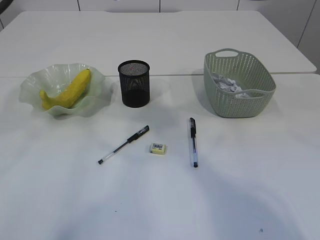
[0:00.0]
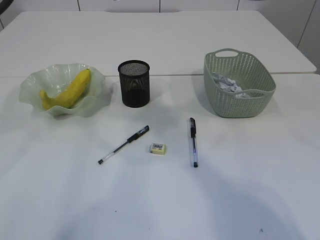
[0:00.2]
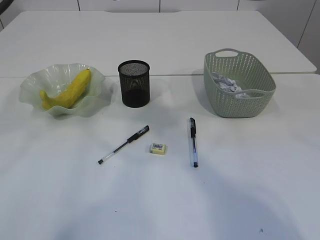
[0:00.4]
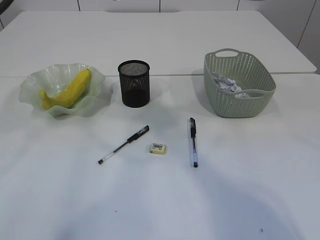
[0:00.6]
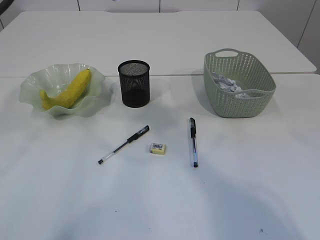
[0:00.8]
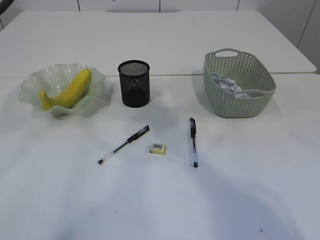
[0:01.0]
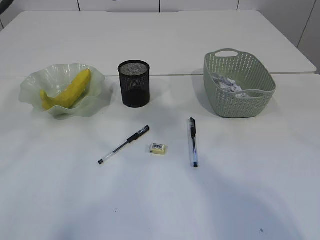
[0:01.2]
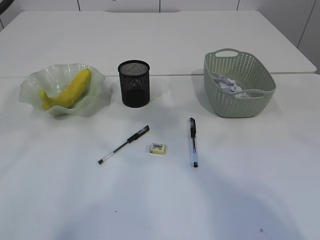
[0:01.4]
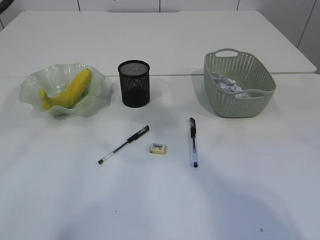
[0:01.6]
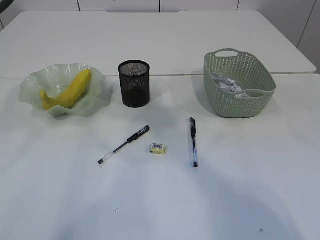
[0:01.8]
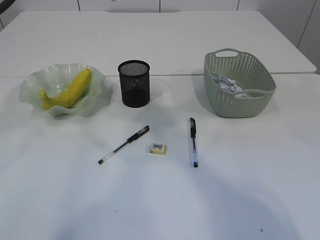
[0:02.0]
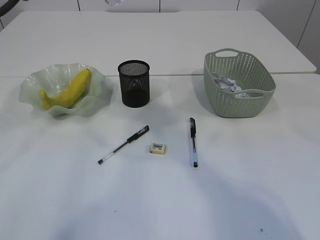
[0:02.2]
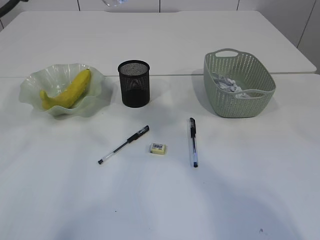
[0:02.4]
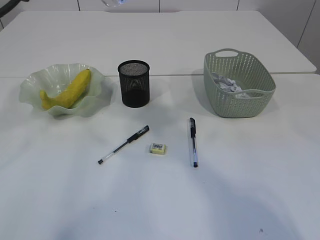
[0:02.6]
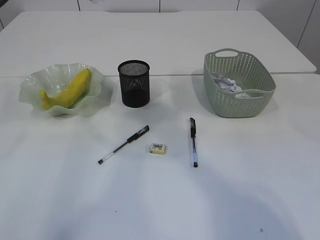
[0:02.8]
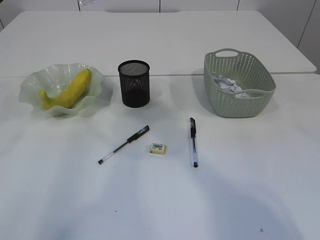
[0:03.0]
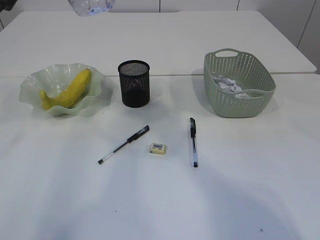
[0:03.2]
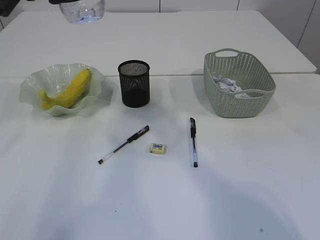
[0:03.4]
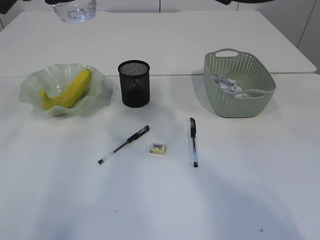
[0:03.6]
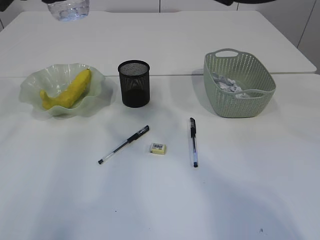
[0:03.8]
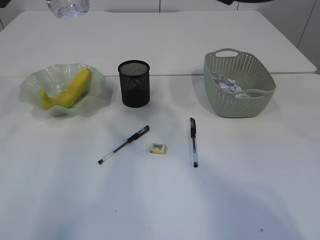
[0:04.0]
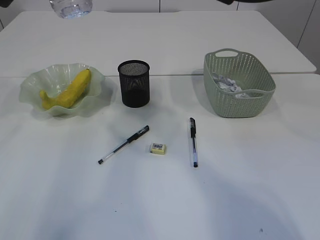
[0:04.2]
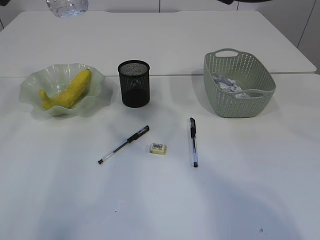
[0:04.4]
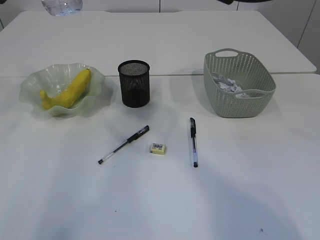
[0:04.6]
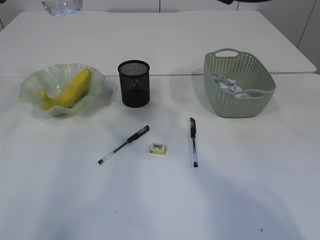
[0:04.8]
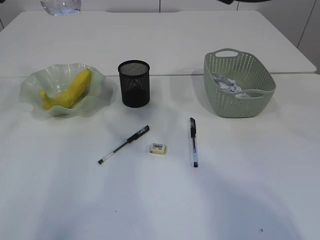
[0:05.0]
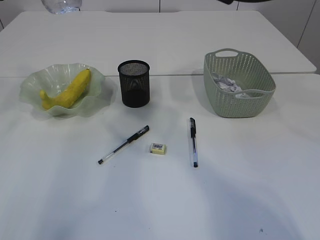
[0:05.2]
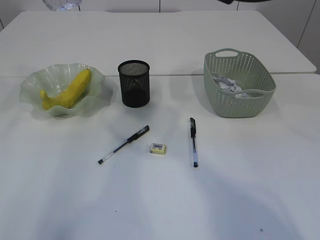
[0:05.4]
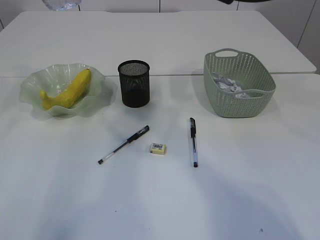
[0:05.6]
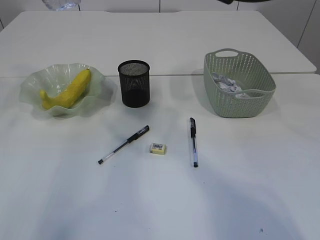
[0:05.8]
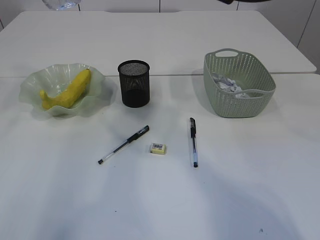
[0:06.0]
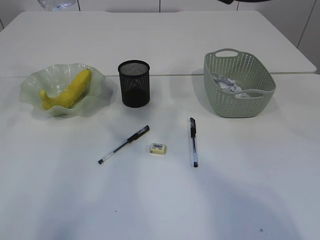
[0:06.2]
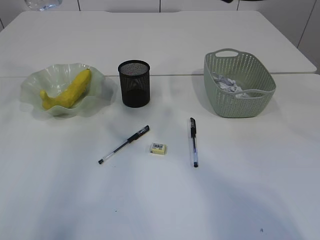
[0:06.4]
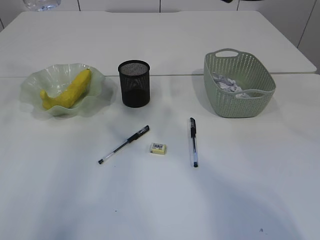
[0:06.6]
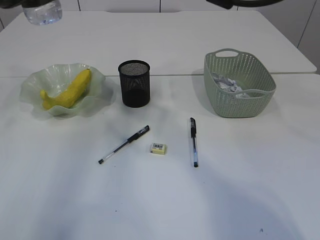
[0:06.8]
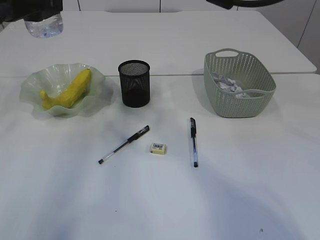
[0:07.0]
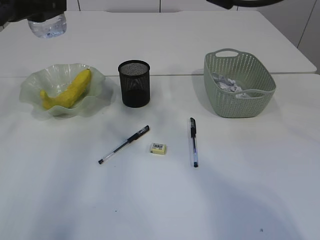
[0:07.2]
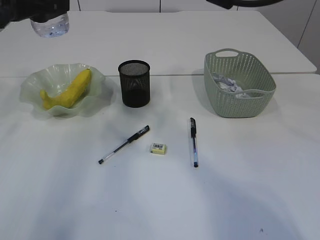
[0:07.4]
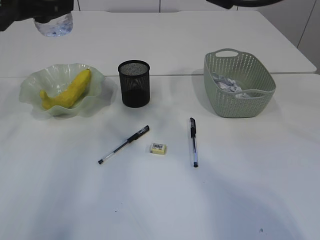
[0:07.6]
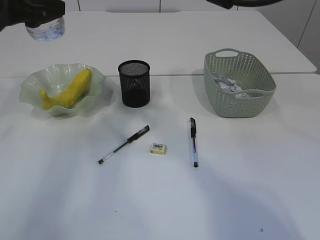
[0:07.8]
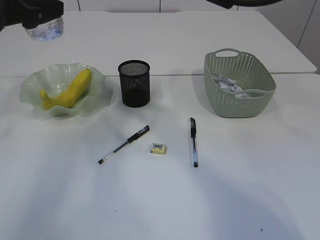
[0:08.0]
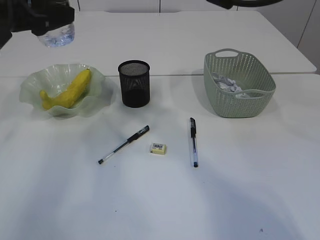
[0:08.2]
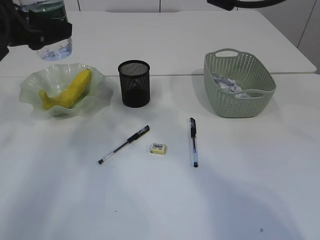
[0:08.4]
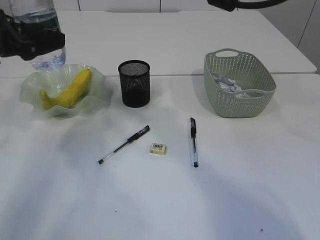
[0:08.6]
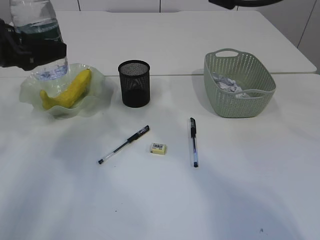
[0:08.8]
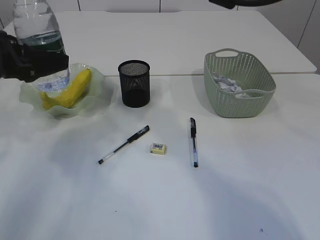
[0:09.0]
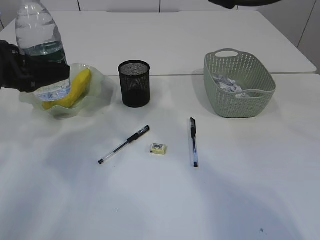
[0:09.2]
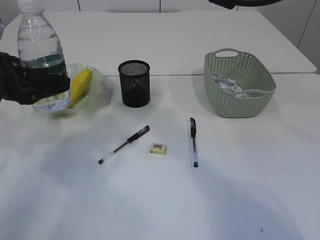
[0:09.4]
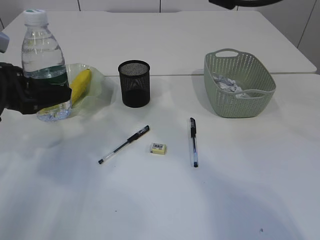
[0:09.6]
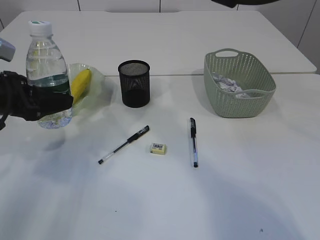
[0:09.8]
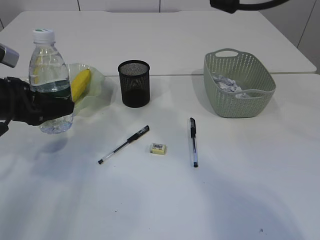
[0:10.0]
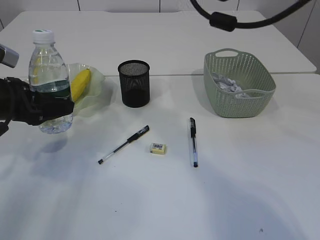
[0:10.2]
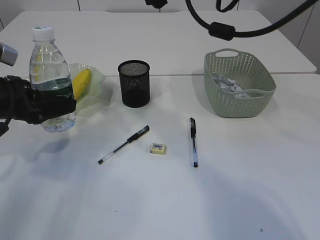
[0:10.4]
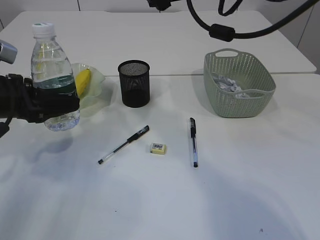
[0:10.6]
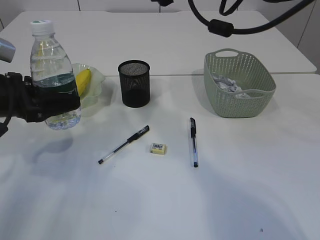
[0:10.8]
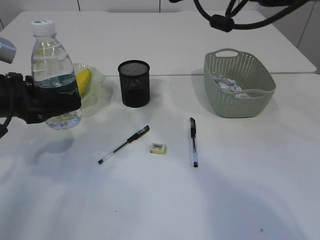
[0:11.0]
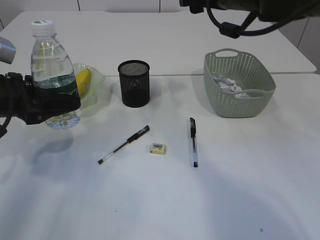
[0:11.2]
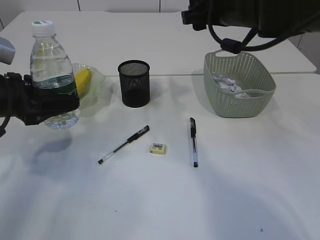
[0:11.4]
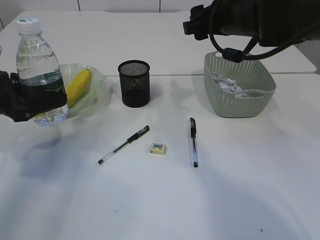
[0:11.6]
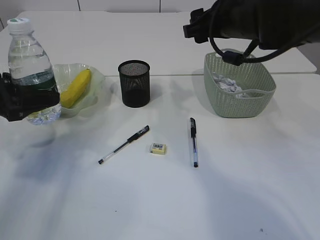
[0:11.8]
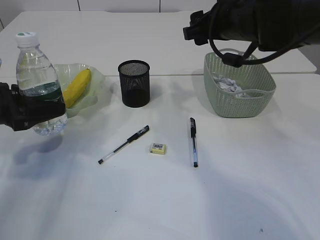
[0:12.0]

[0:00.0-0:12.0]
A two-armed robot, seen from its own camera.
0:00.0 to 0:01.6: Neither gripper changes place.
0:06.0 to 0:07.6: The grippers move only a little.
0:07.6 to 0:09.0: The left gripper heads downward, covering approximately 5 cm.
0:09.0 to 0:10.4: The left gripper travels downward by roughly 5 cm, while the right gripper moves some 5 cm.
0:10.4 to 0:12.0: The right gripper shifts roughly 5 cm downward.

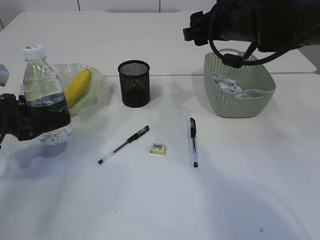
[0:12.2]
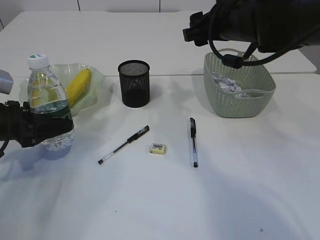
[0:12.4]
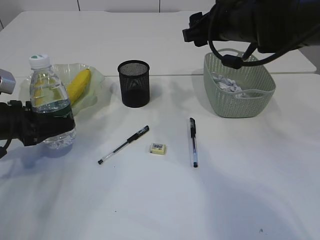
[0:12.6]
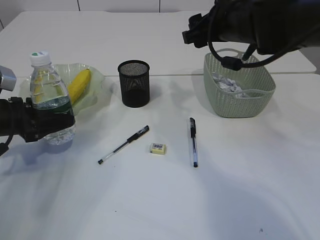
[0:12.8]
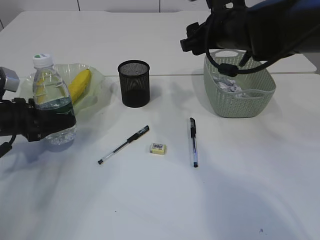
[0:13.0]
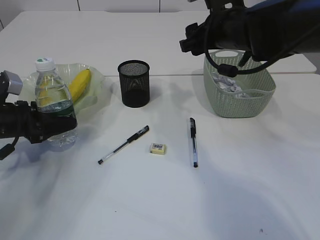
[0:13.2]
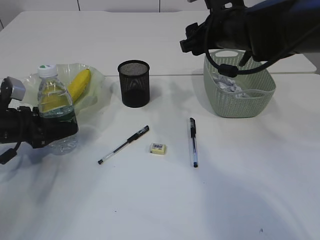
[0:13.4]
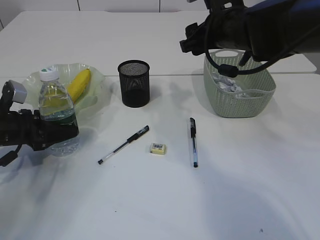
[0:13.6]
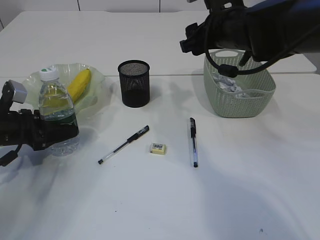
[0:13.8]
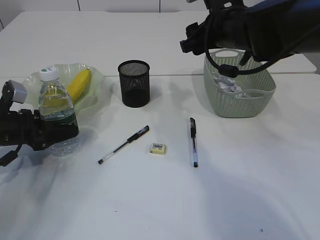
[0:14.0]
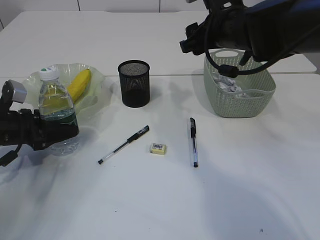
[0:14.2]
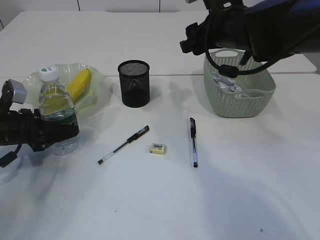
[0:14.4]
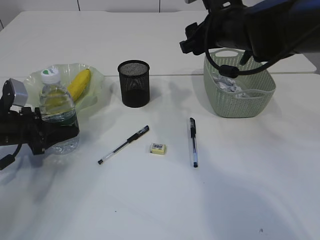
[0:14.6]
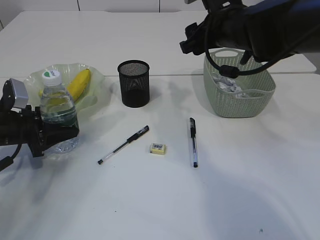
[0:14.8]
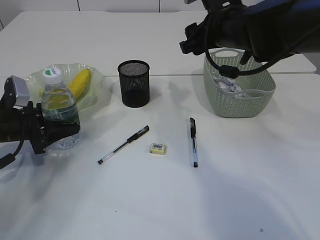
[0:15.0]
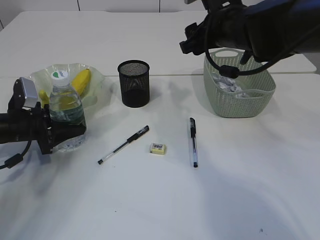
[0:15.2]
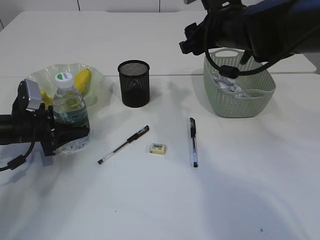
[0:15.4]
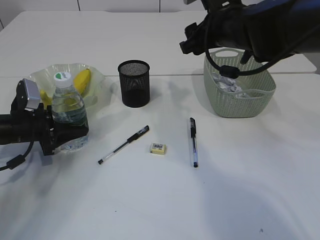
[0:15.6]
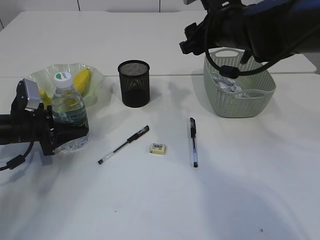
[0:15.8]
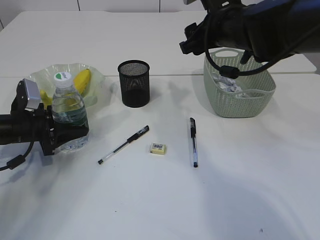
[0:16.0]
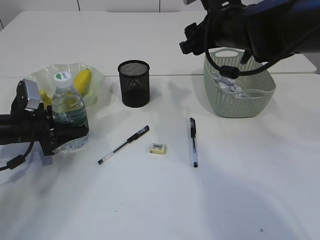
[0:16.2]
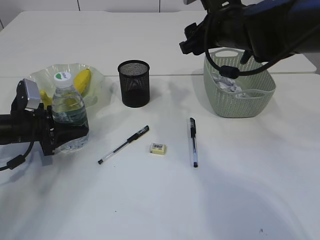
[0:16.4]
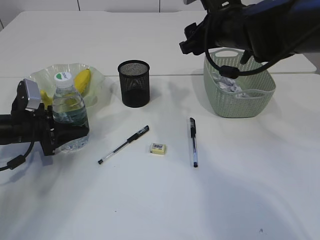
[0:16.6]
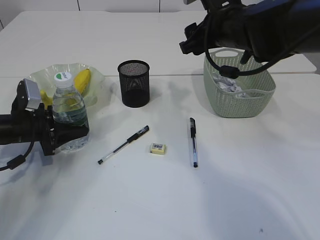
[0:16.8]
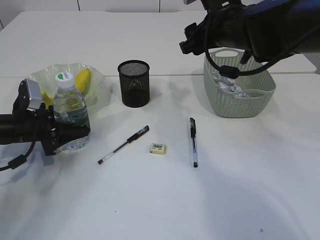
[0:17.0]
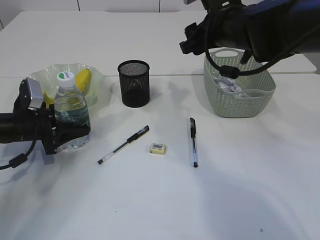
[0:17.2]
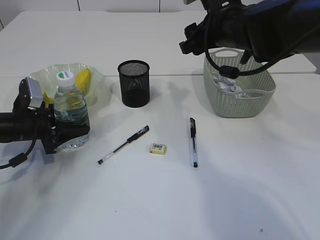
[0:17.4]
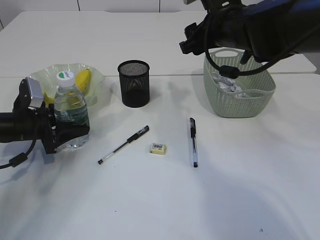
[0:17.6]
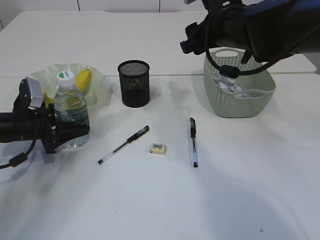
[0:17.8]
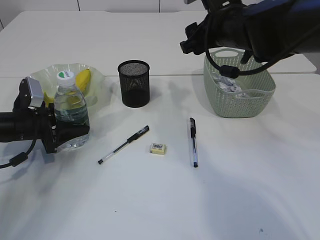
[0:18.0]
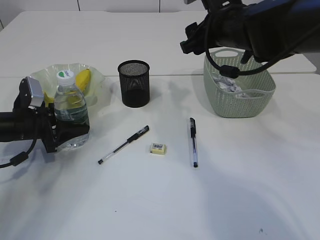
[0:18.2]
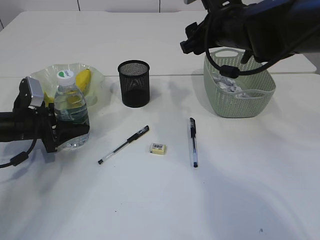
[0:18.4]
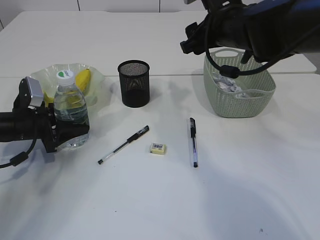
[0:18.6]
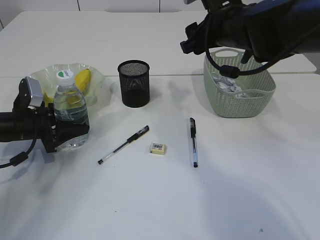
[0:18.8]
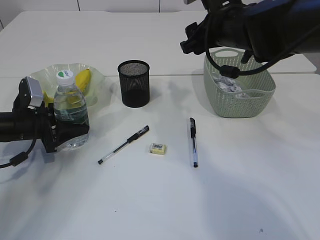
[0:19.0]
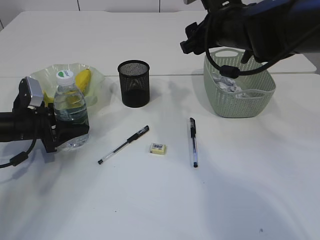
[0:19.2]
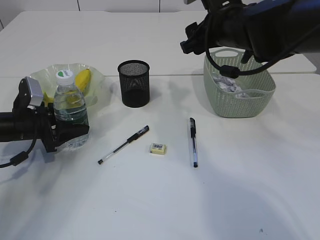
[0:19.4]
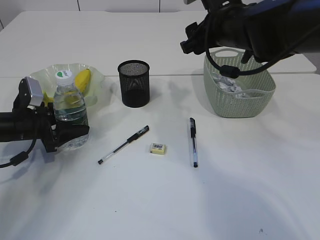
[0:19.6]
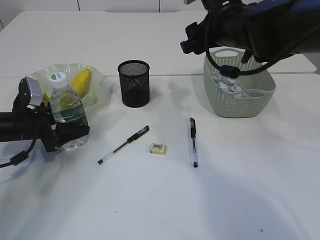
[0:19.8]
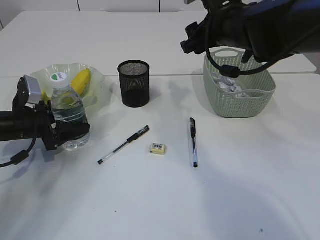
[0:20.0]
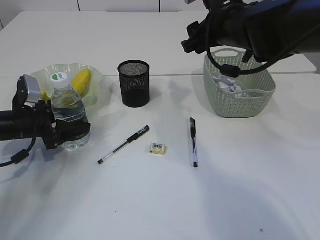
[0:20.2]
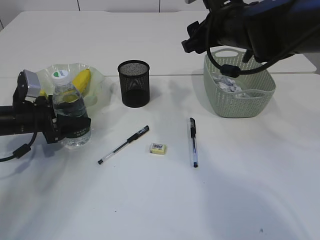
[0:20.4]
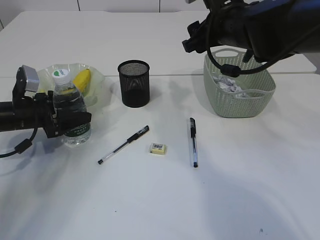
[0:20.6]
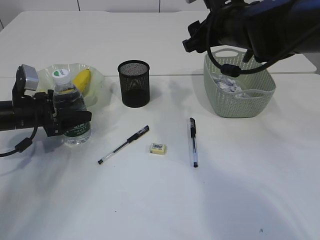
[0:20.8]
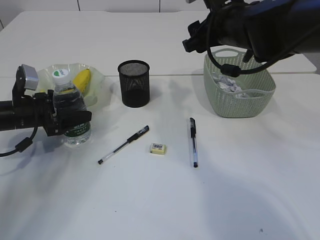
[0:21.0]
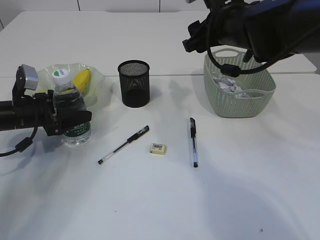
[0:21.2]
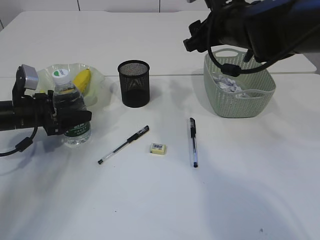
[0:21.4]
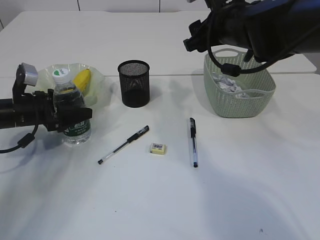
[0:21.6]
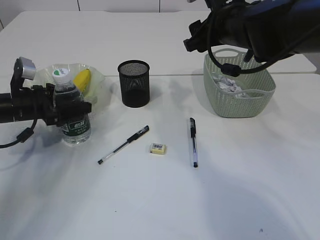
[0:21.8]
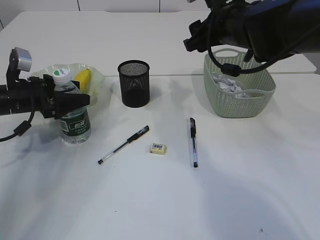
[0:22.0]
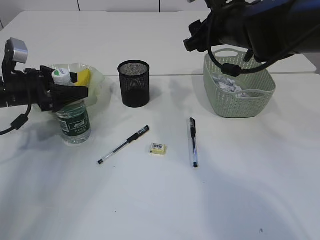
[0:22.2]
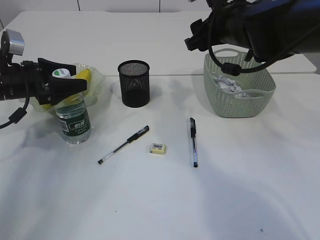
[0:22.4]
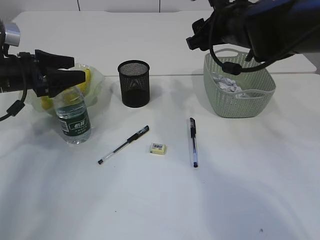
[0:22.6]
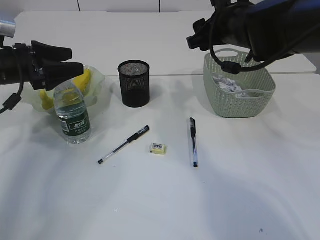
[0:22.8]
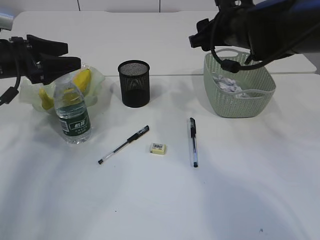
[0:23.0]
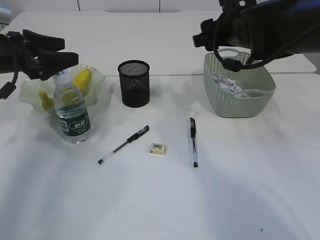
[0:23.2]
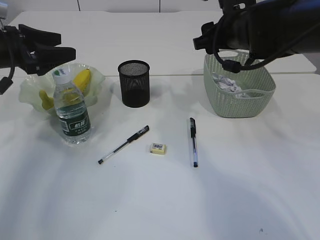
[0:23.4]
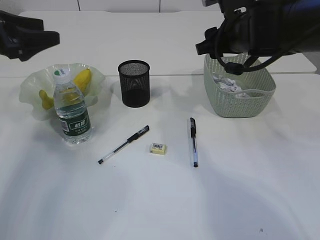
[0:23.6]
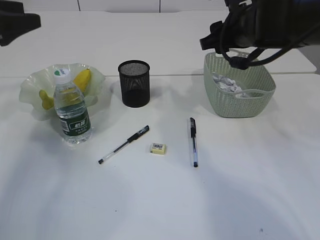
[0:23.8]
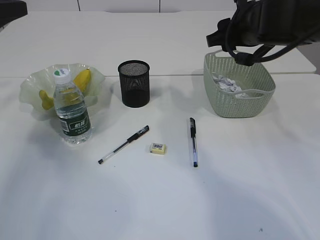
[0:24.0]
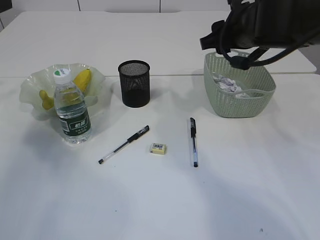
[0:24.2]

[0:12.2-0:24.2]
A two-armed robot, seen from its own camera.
Step, 0:12.2 to 0:22.4: Place the bottle.
0:12.2 to 0:13.8: The left gripper travels downward by some 5 cm.
0:13.8 to 0:15.2: The grippers make only small movements.
0:15.2 to 0:19.8: The two grippers keep their place.
0:19.8 to 0:21.2: The grippers make only small movements.
0:21.2 to 0:22.6: The left gripper is displaced upward by roughly 10 cm.
0:22.6 to 0:24.2: The left gripper heads upward and to the left, covering roughly 15 cm.
